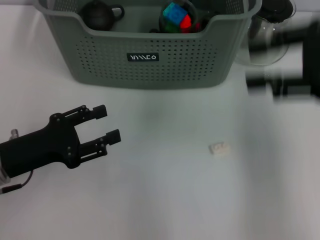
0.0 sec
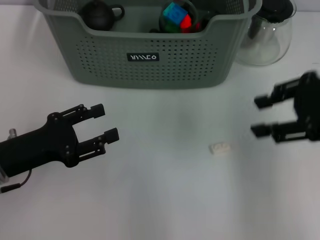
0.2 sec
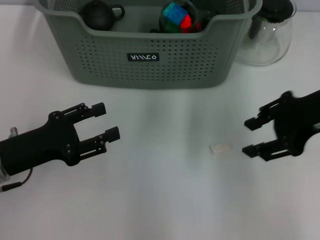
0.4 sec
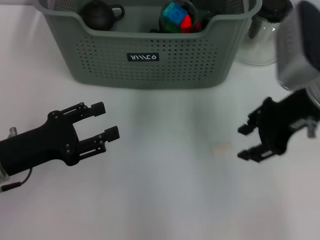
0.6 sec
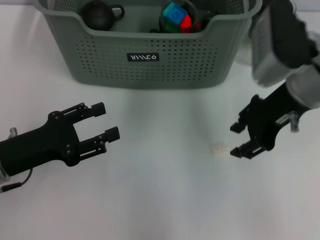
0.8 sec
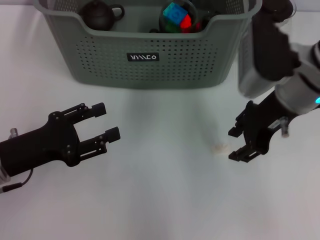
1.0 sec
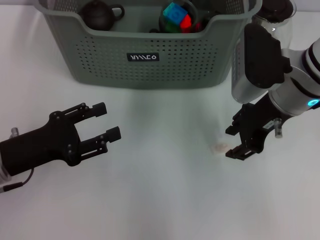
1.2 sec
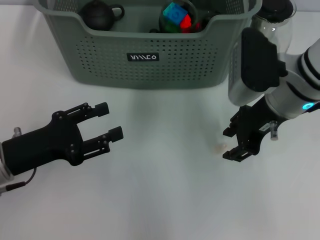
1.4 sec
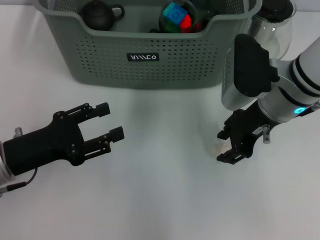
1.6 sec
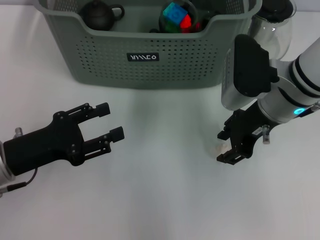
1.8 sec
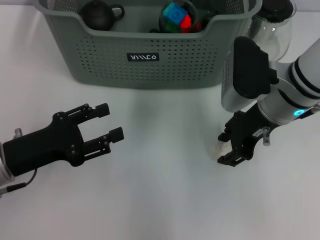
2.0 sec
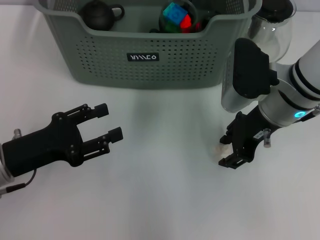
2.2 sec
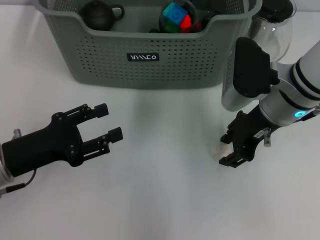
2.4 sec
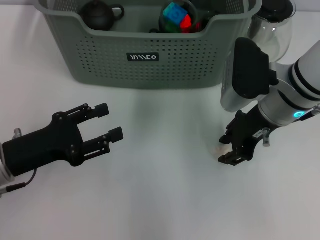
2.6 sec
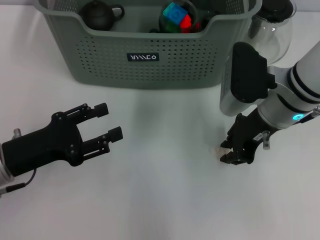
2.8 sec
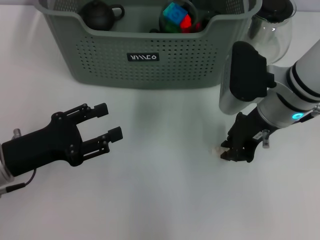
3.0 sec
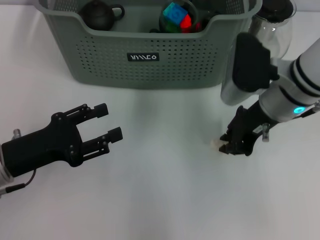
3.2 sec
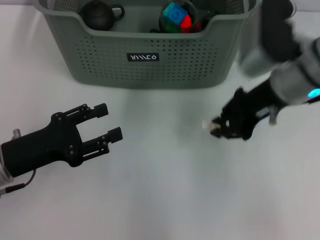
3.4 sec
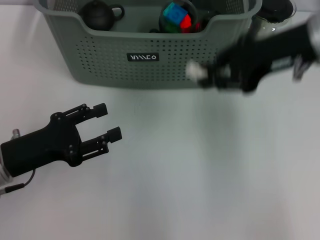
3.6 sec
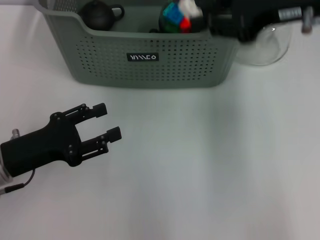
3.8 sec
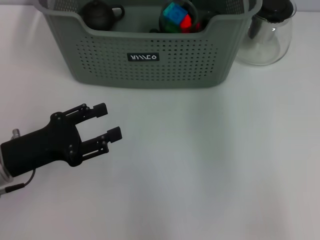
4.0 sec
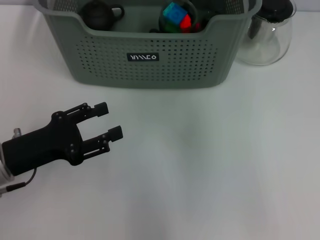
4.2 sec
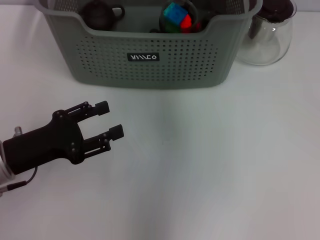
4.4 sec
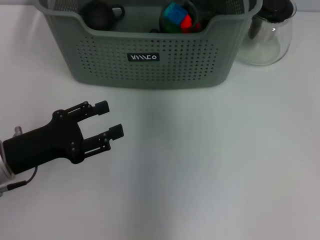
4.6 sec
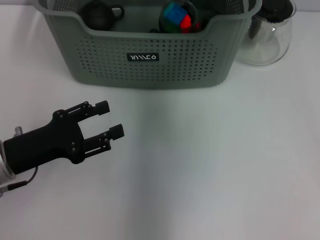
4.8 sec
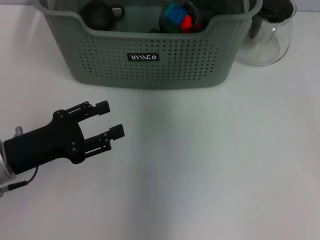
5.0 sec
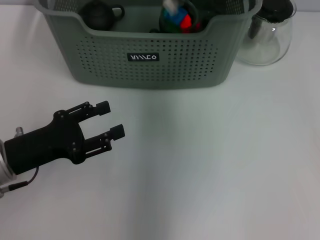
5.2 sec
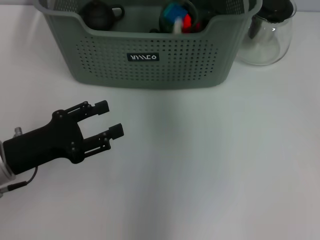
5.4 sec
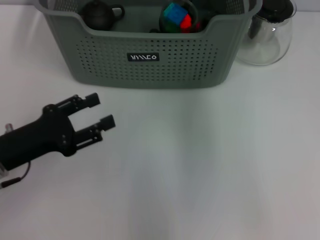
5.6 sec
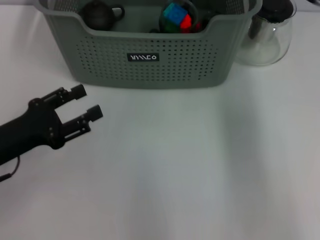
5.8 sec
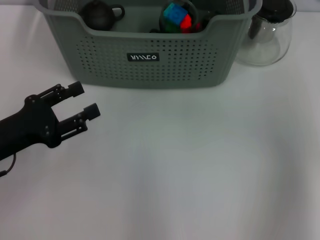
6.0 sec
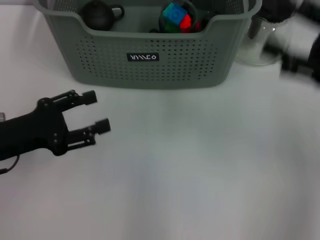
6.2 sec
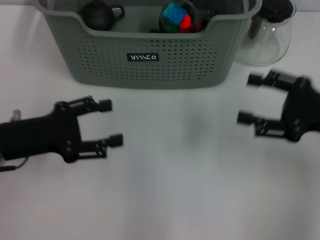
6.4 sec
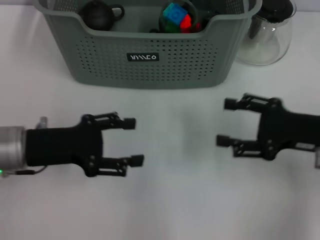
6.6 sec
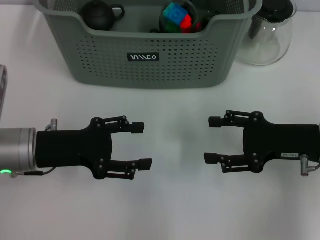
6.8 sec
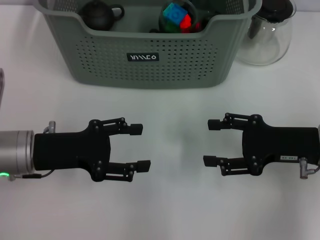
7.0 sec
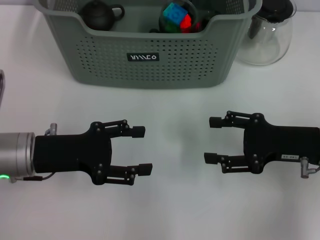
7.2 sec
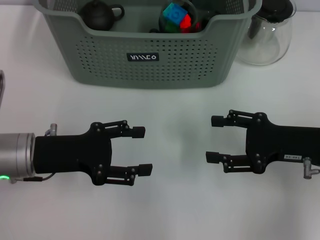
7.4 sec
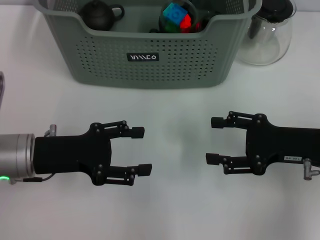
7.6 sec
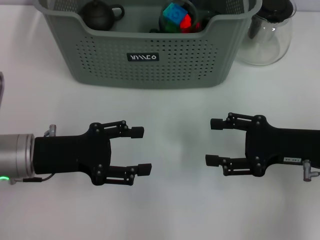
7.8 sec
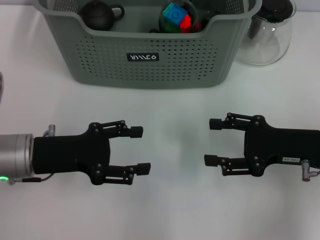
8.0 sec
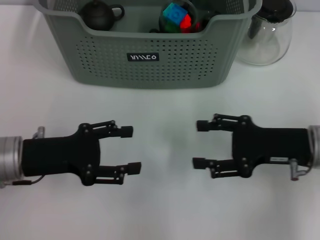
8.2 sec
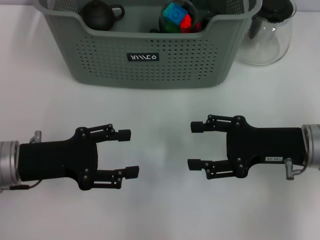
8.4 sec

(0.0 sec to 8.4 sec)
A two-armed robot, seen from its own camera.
Task of the whole recording: pick up the teacup on the table and place it into the storage bin, pick up the block on the table and place it into the storage bin.
Step, 0.0 sec - 2.8 sec: Grasp the white block with right gripper.
Step, 3.0 sec - 5.2 sec: Place the white block in the storage box with right gripper.
0.0 sec - 1.4 sec: The right gripper shifts some 15 cm downward, to the left and forward.
1.4 sec - 2.8 sec: There are only small adjustments of the grippers.
2.8 sec - 4.2 sec: The right gripper shifts some 15 cm upward and forward, and closes up.
5.6 sec - 7.0 sec: The right gripper heads downward, backward and to the right, covering roughly 25 cm.
7.0 sec - 8.4 sec: There are only small adjustments of the grippers.

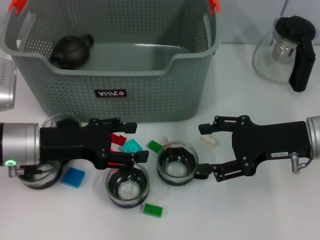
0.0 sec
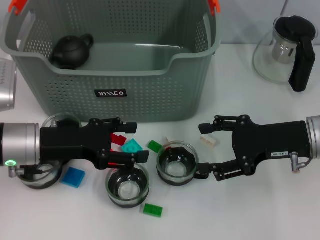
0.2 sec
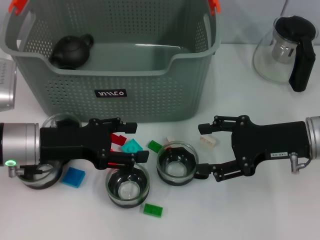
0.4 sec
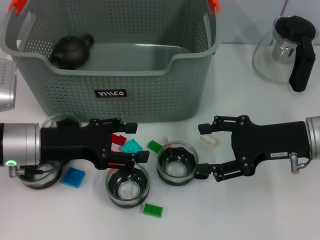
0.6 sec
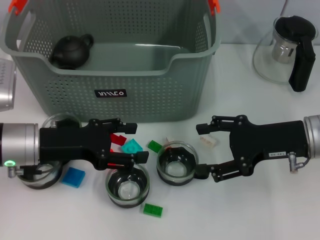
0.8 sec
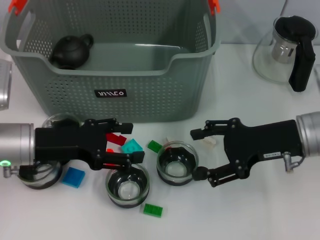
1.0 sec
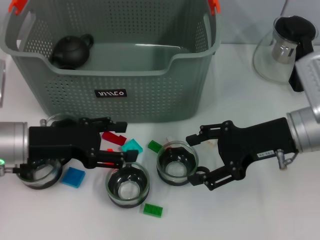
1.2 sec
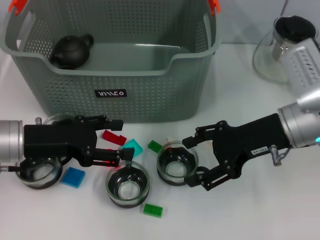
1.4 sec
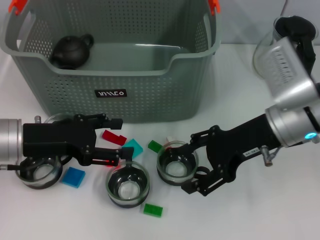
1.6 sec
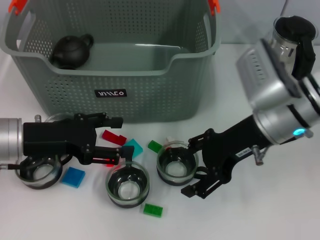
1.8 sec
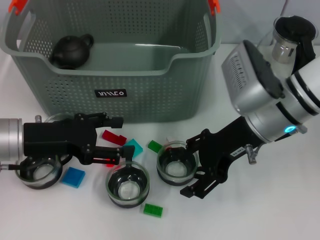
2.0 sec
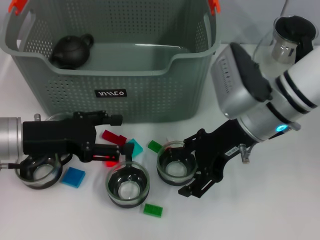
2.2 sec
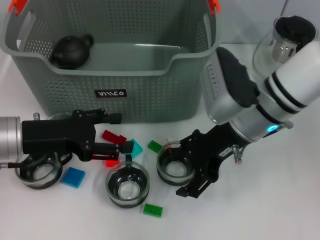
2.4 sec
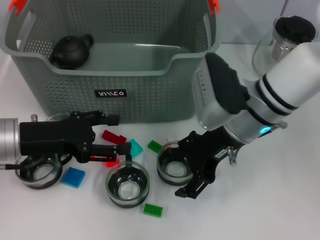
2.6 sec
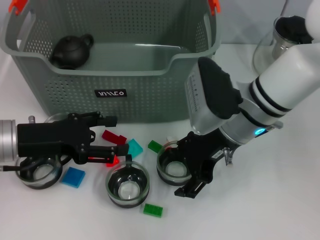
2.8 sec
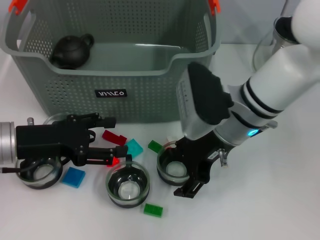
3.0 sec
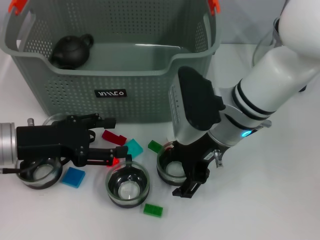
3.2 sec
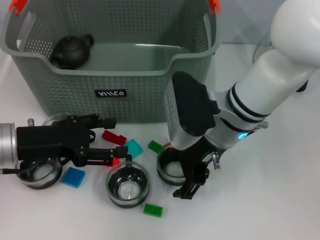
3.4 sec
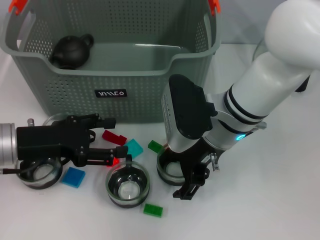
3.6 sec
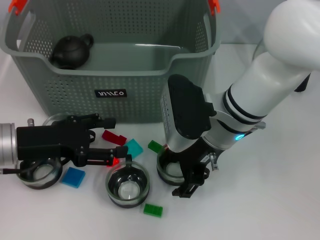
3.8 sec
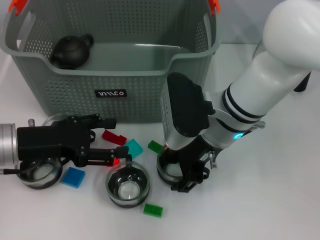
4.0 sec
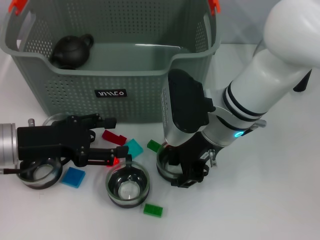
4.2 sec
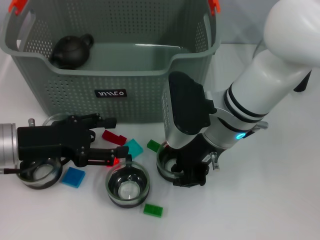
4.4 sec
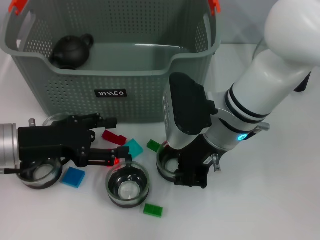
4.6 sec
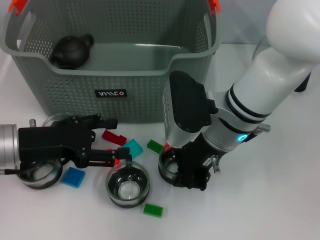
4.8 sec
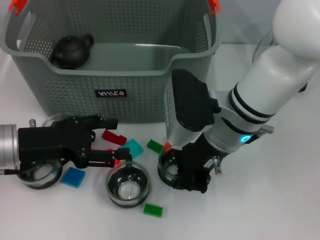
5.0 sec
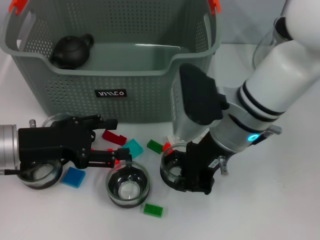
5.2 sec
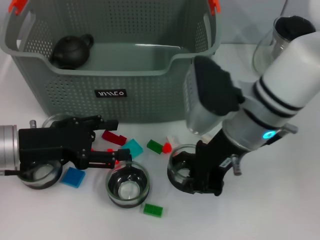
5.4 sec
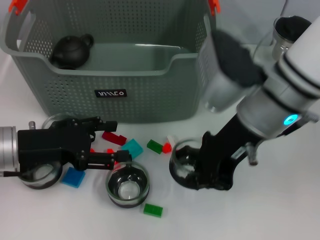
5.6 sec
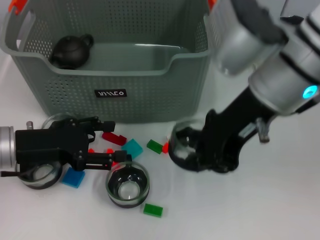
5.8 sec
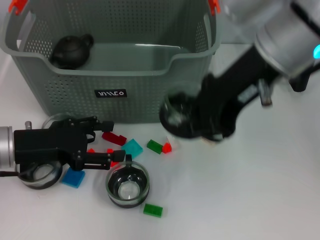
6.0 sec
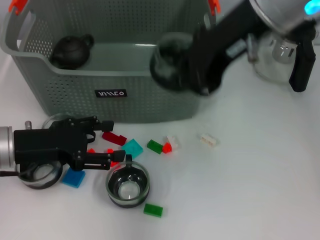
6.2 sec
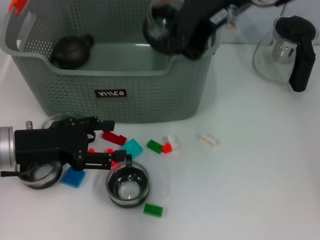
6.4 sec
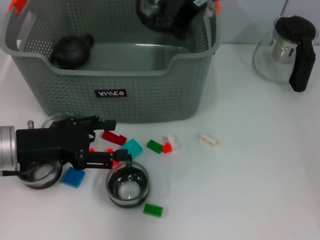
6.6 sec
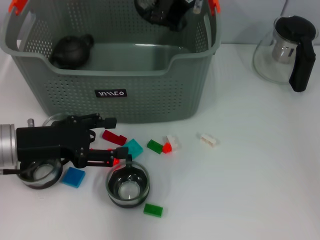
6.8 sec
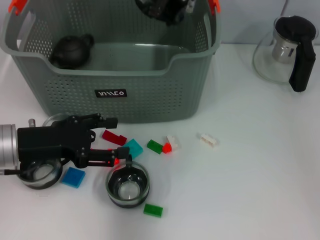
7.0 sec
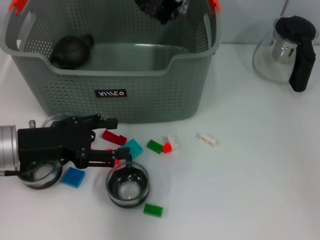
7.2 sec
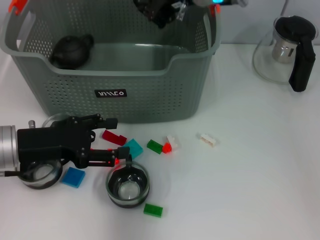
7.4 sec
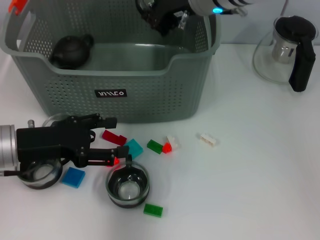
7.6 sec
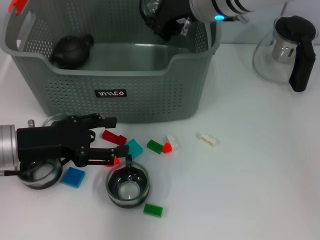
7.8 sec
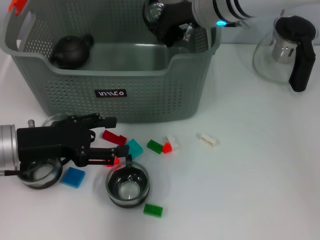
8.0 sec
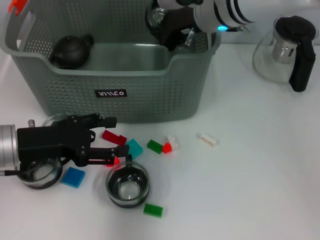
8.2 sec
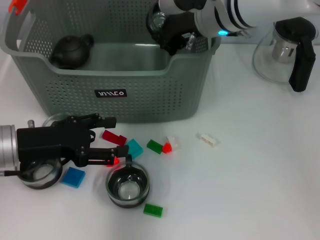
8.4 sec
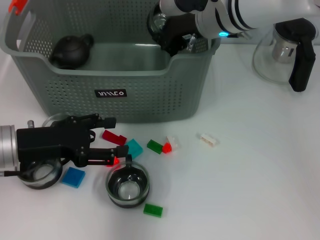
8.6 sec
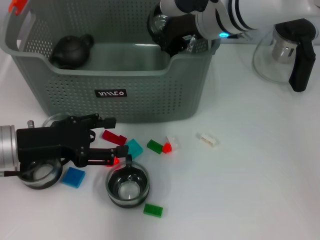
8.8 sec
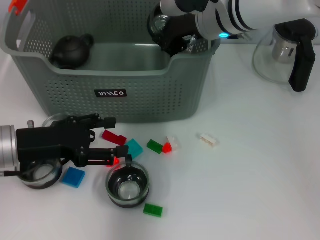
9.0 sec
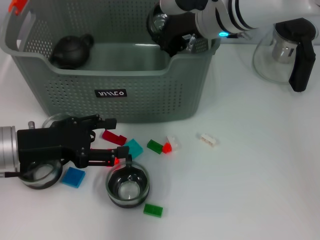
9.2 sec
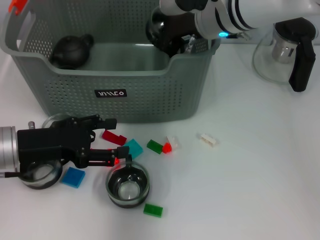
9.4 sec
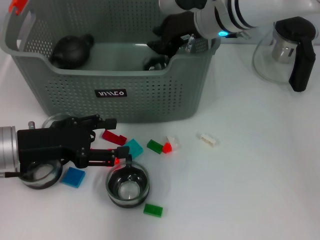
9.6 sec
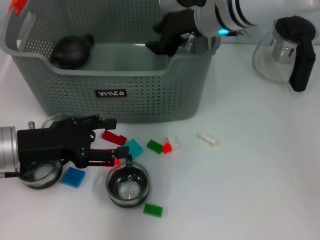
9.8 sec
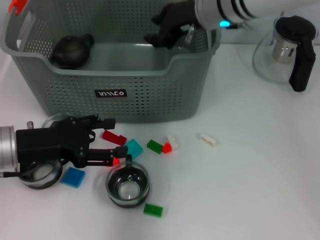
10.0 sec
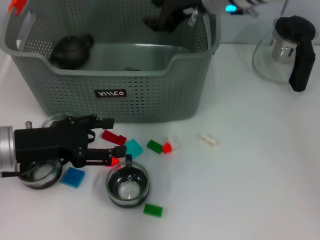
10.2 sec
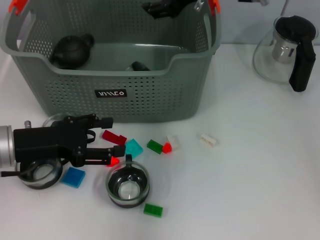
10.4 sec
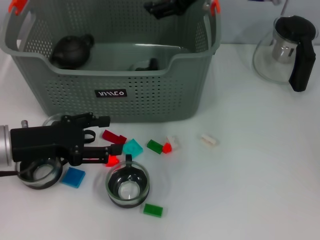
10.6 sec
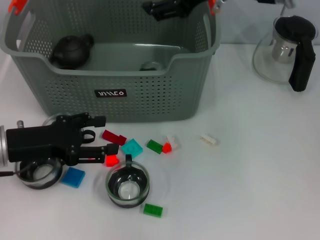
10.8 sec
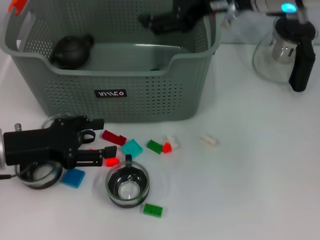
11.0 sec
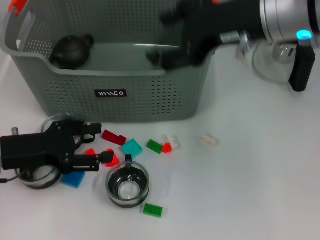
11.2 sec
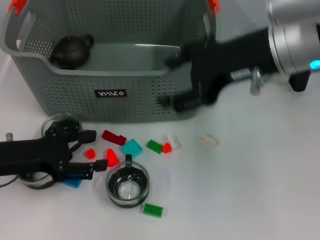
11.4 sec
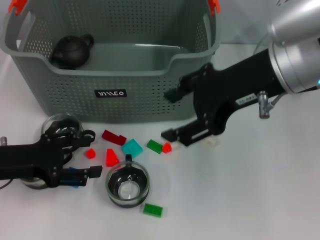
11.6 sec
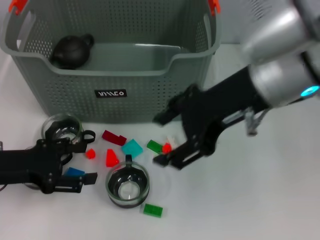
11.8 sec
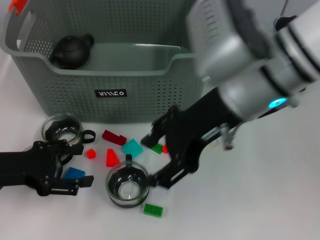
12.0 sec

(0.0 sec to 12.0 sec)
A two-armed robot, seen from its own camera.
Task of the whole recording: pick up the teacup on the table and place it into the storage bin, pick up the block on the table and place it into the storage bin.
Step, 0.0 sec - 4.6 sec: Grasp the cup with right gripper.
Step, 4.8 sec - 9.6 sec: Place the cup in the storage box with right gripper.
0.0 sec - 1.6 sec: The right gripper moves to the left, about 5 cm.
1.6 sec - 3.0 sec: The right gripper heads to the left, covering roughly 10 cm.
3.0 sec - 4.4 sec: The right gripper closes up.
4.4 sec - 6.0 sec: The right gripper heads upward, covering about 15 cm, and closes its fingers.
6.0 sec - 7.6 sec: The right gripper travels forward and downward by some 15 cm.
7.6 sec - 9.0 sec: There are only small adjustments of the grippers.
9.0 sec - 10.4 sec: The right gripper is displaced upward by some 5 cm, and opens.
10.4 sec - 12.0 sec: The right gripper heads backward, covering roughly 15 cm.

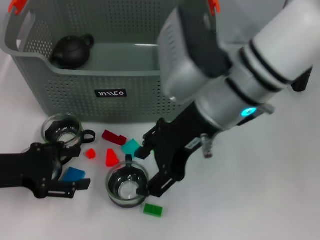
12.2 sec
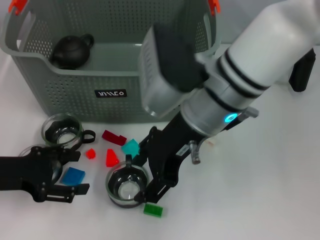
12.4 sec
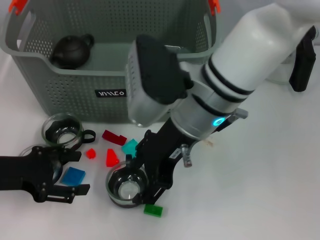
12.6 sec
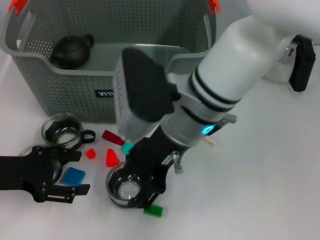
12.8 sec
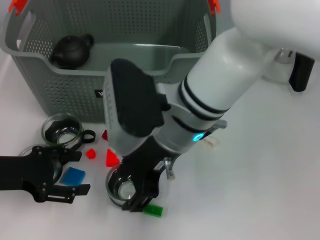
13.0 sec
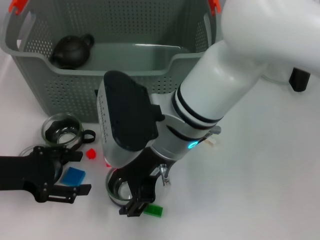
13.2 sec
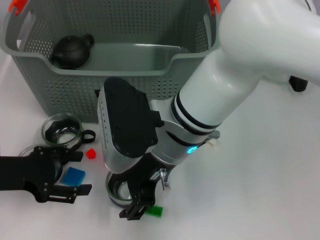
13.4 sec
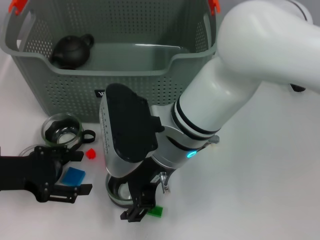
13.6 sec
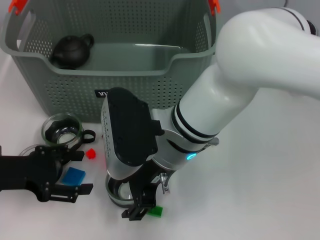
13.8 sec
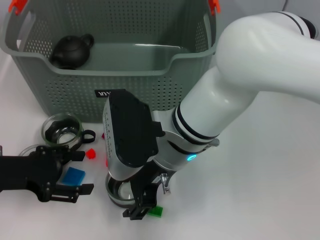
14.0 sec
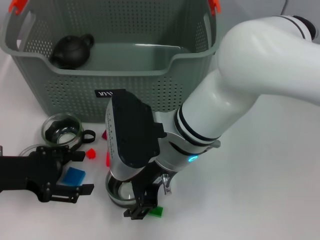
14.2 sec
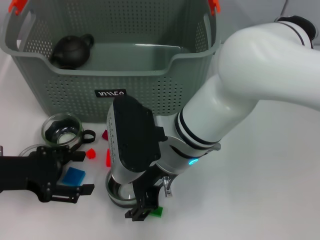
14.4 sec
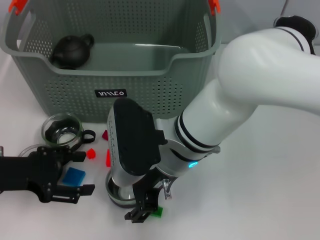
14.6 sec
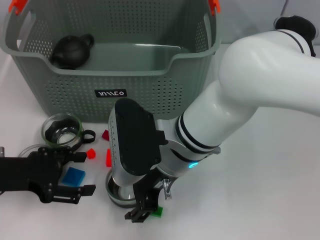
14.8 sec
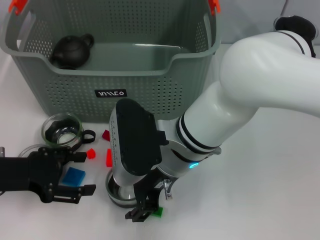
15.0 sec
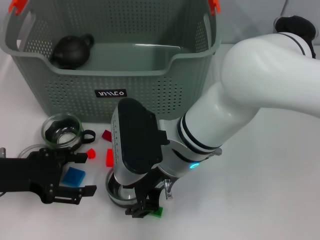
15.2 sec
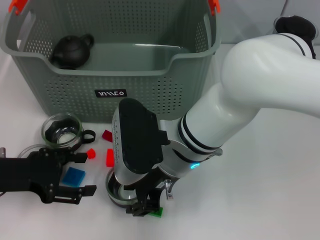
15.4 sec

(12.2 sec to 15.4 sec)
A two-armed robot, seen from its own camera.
Task of the whole recording: pick up the teacup on the table and place it into the storage bin, pick up the block on the table and place it into the storage bin.
12.2 sec - 13.8 sec: The right gripper is displaced downward and to the left by approximately 10 cm.
13.8 sec - 15.4 sec: The grippers stay close to where they were, moving slightly.
